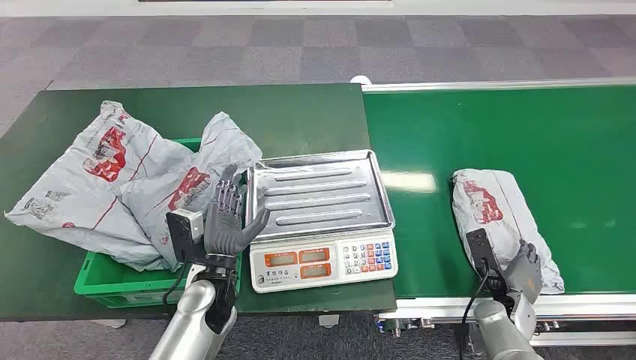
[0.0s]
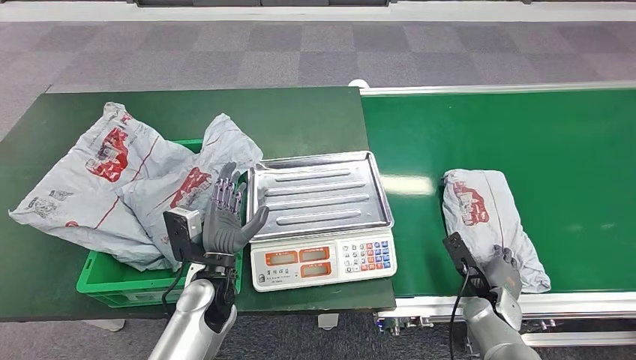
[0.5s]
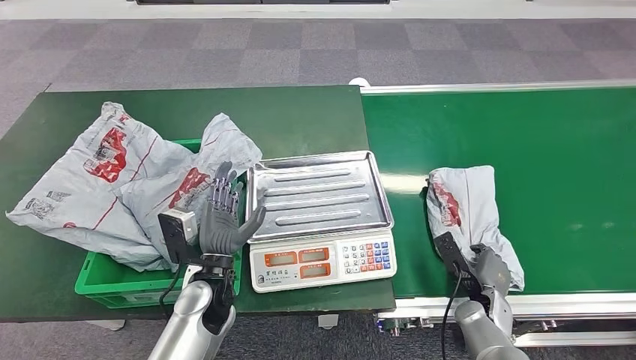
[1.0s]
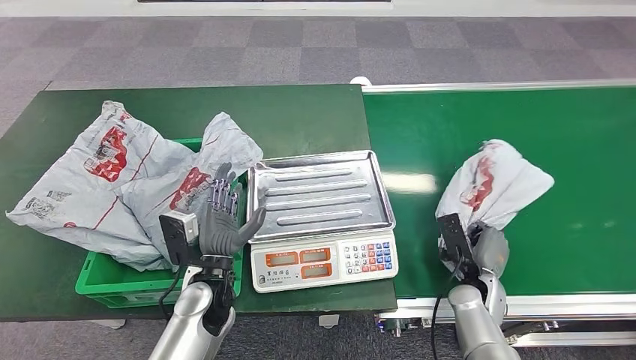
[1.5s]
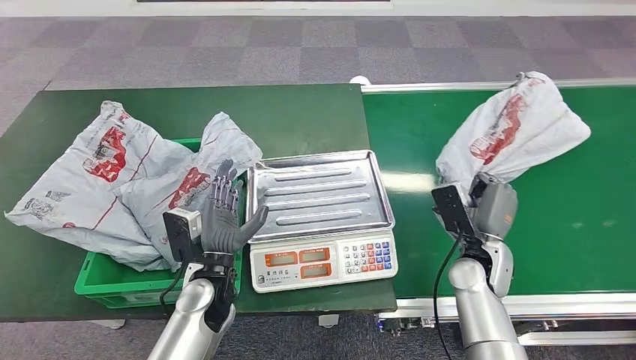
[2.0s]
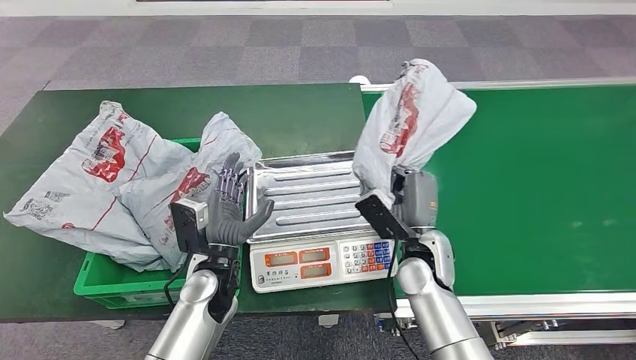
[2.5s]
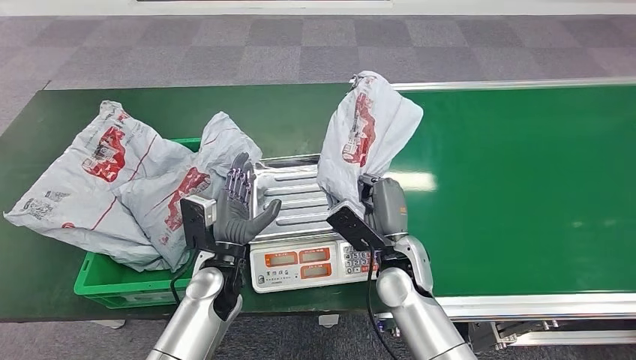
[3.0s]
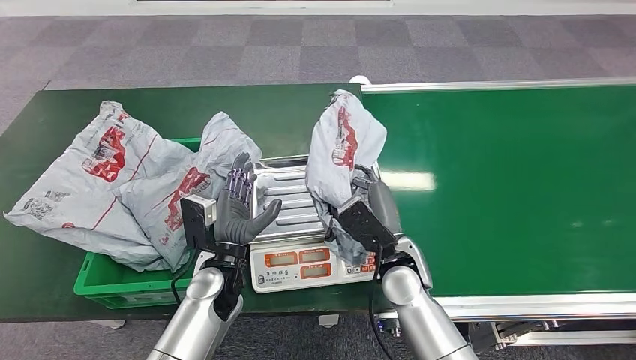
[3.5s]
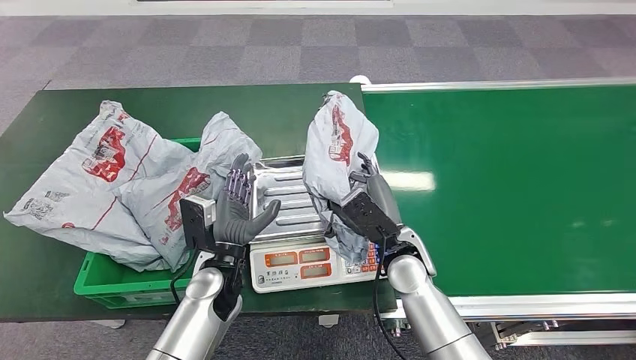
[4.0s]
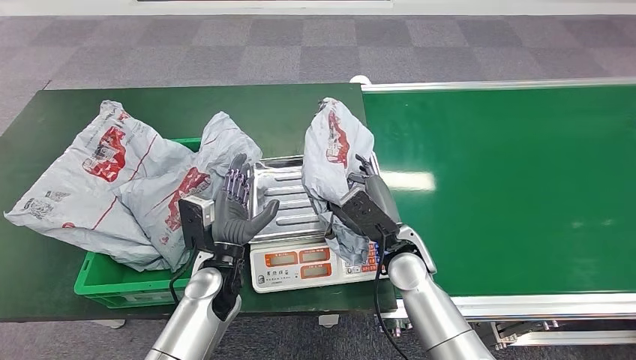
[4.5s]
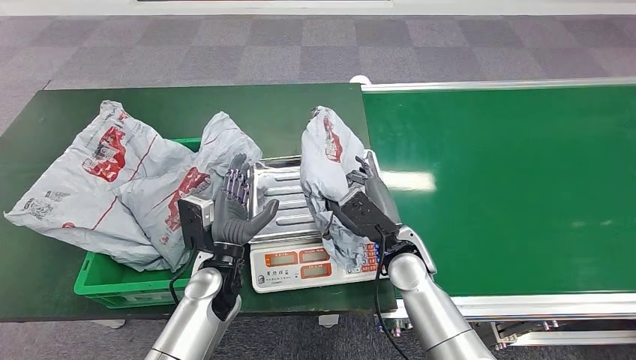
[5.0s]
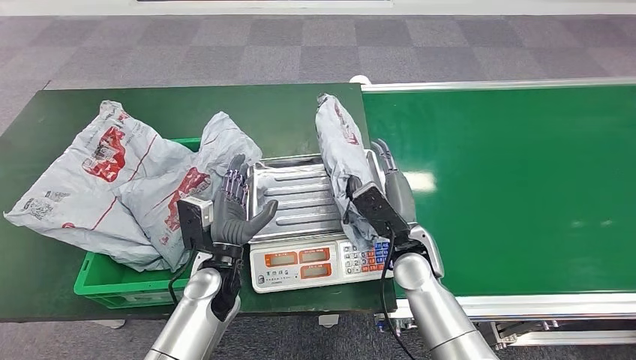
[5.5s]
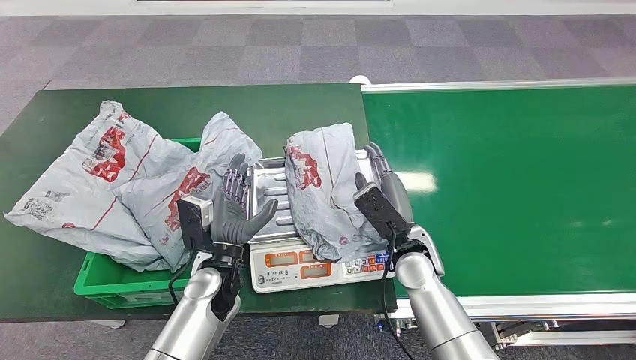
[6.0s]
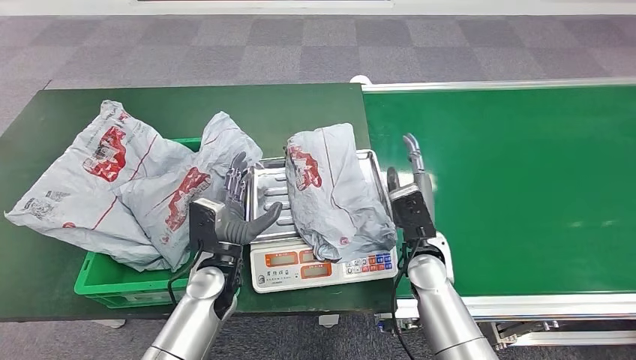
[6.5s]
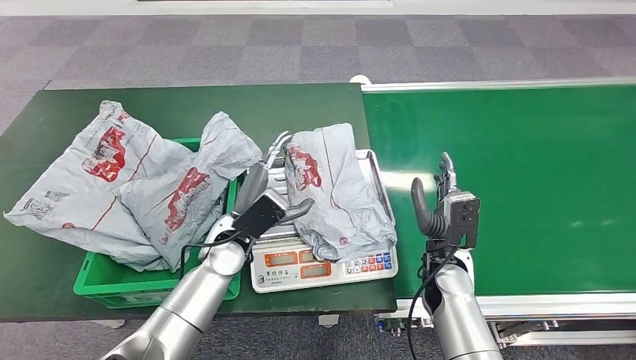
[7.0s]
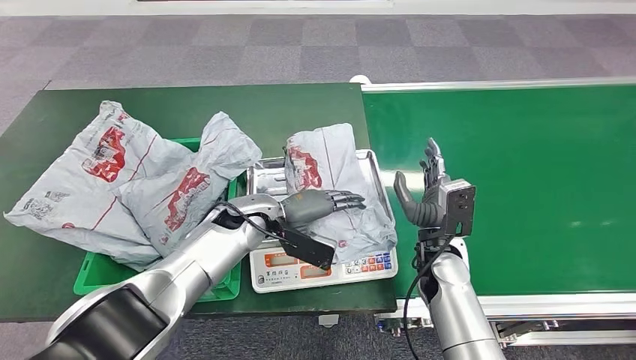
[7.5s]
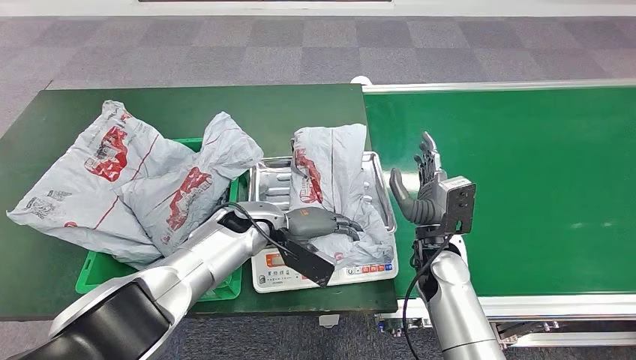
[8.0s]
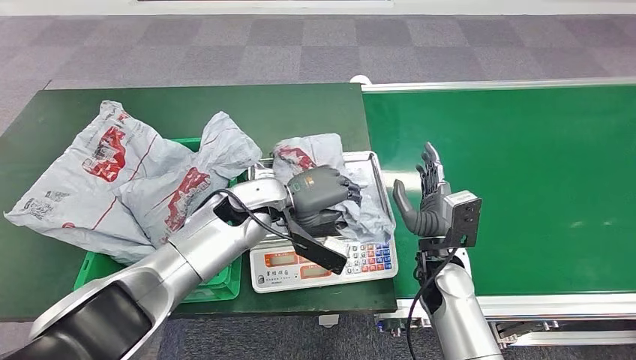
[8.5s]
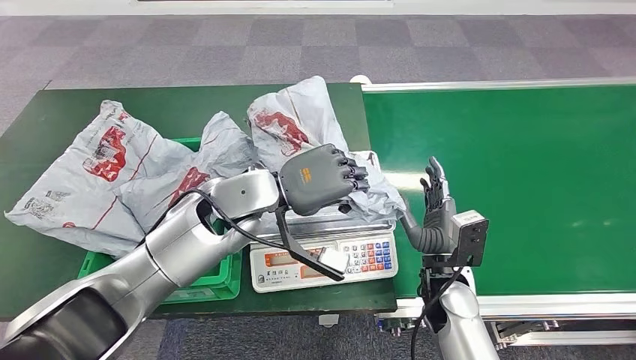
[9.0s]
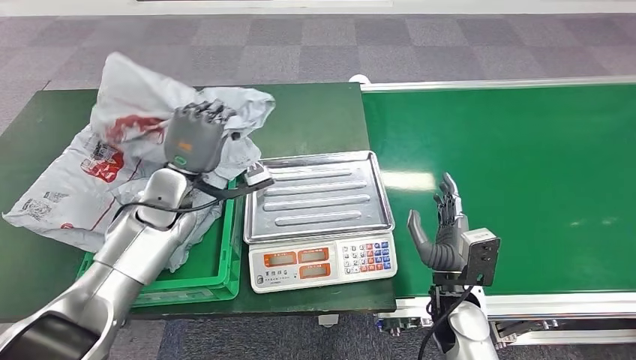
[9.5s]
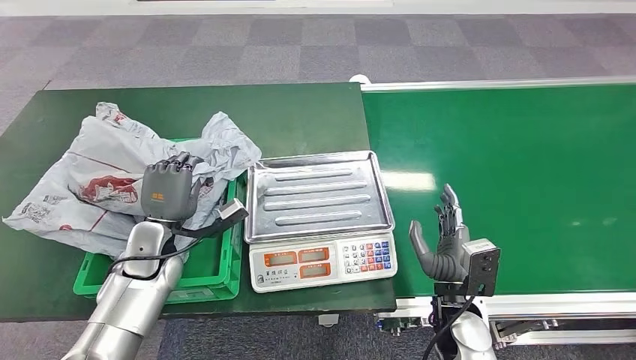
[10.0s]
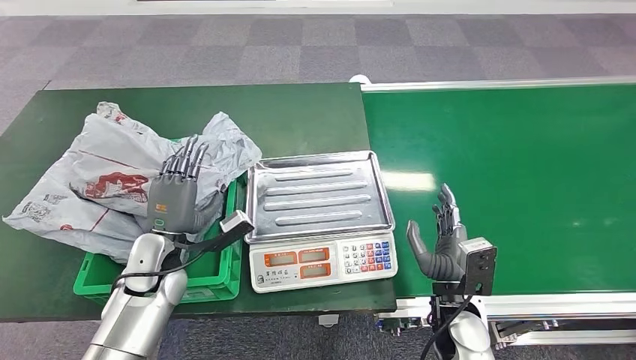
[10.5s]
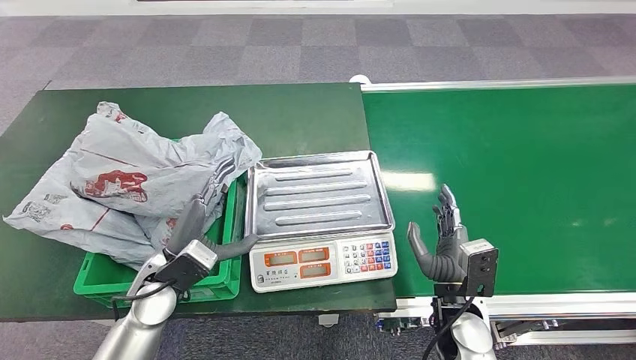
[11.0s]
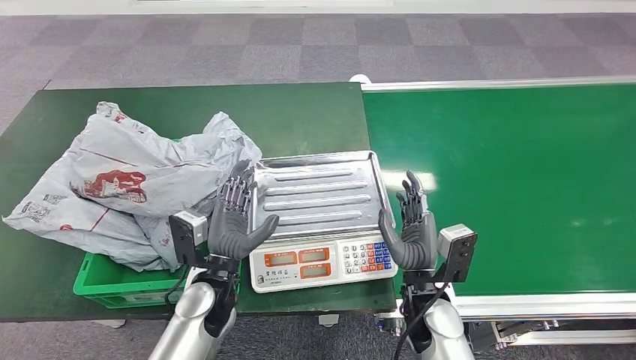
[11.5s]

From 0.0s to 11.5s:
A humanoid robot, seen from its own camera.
Step, from 0.0s to 2.0s: Pick up the package from the conveyor belt.
Step, from 2.5s to 6.5s: Place the package onto the inbound machine.
Step, from 7.5s to 9.0s: Pick up the package from the inbound machine.
Step, from 9.5s to 11.5s: Place the package into the parcel locker.
From 4.0s to 6.0s: The hands move only a little.
From 6.0s to 7.5s: The left hand travels forward by some 10 cm.
